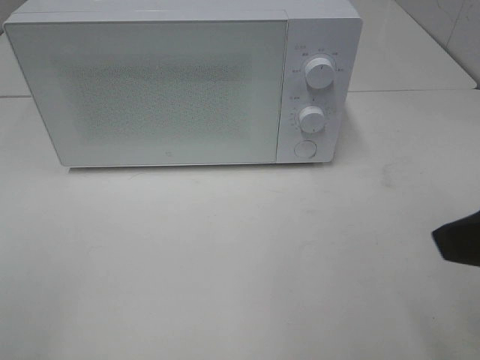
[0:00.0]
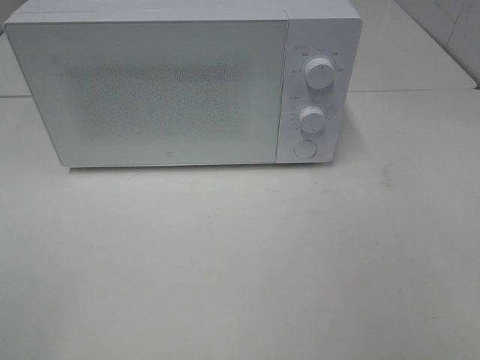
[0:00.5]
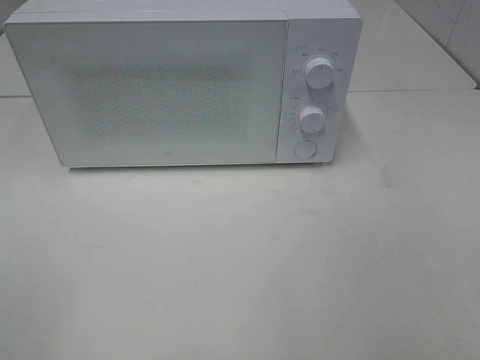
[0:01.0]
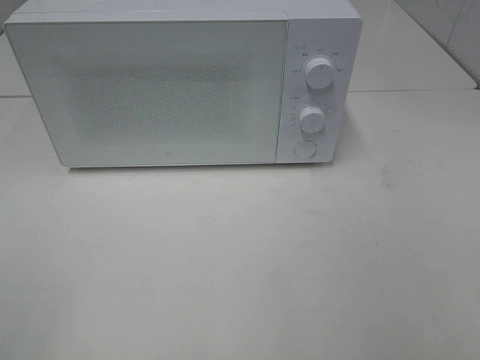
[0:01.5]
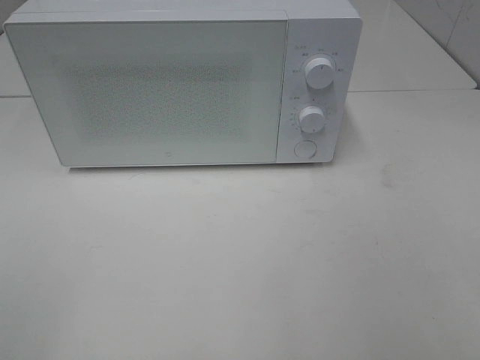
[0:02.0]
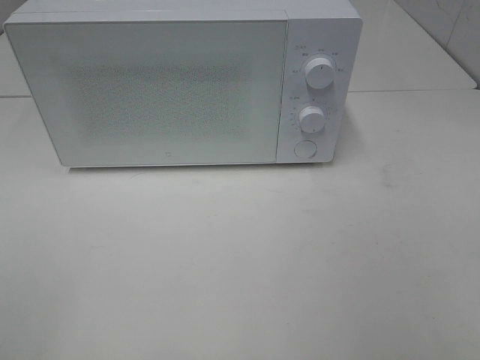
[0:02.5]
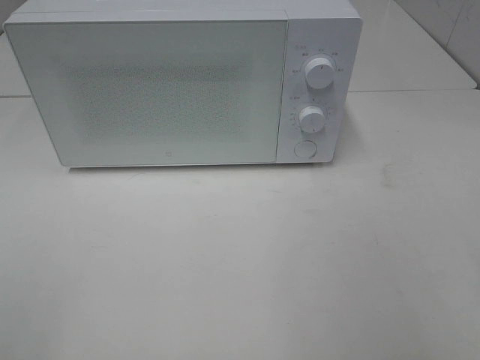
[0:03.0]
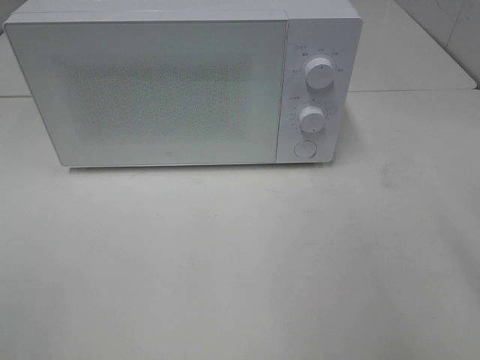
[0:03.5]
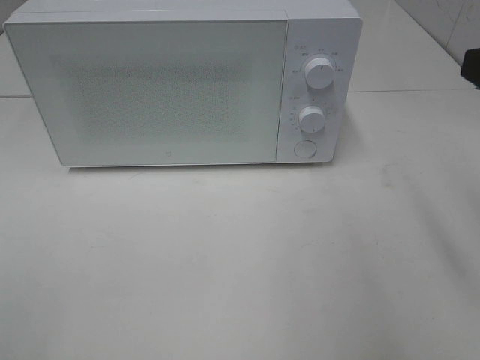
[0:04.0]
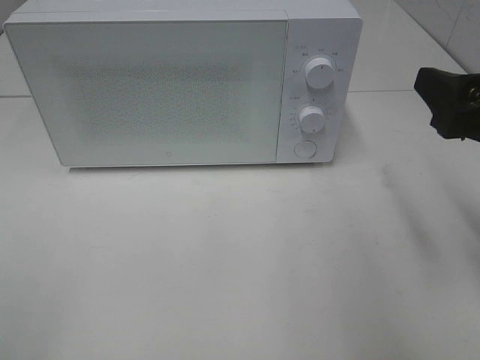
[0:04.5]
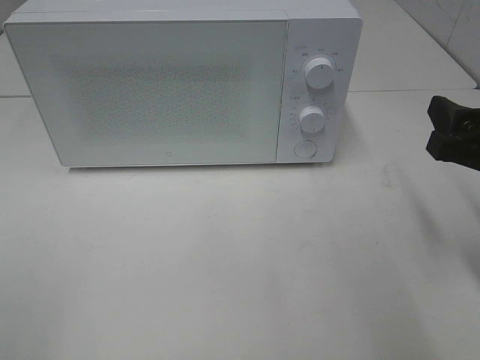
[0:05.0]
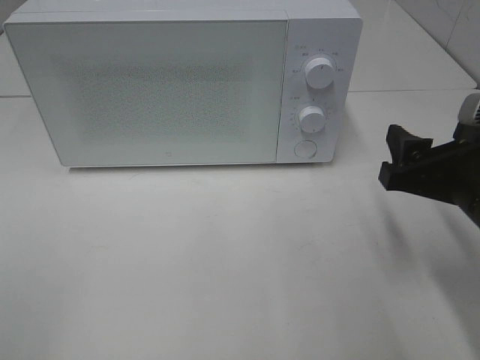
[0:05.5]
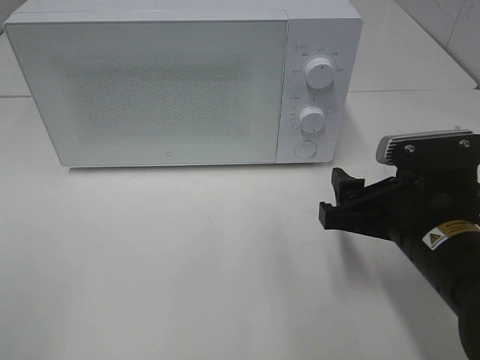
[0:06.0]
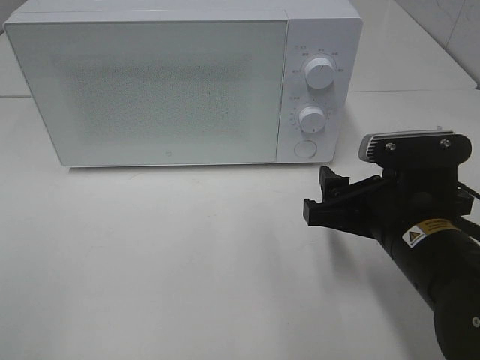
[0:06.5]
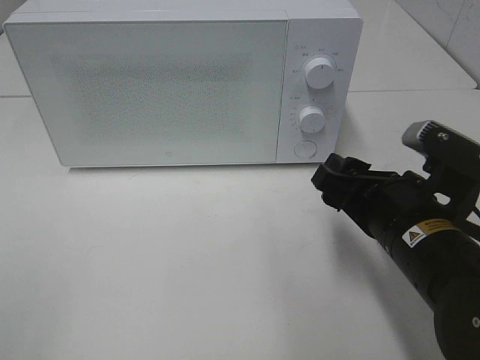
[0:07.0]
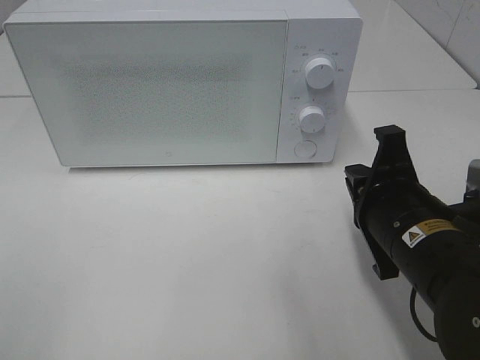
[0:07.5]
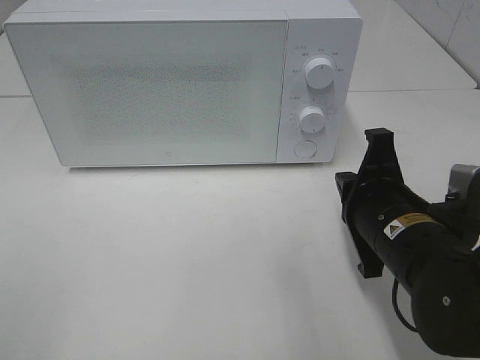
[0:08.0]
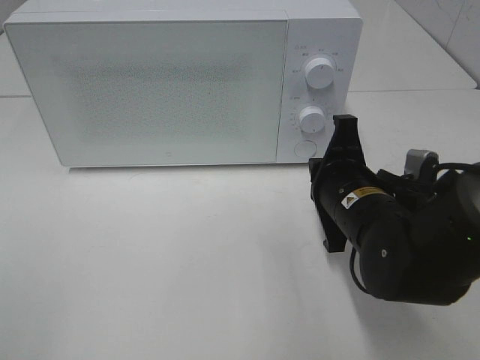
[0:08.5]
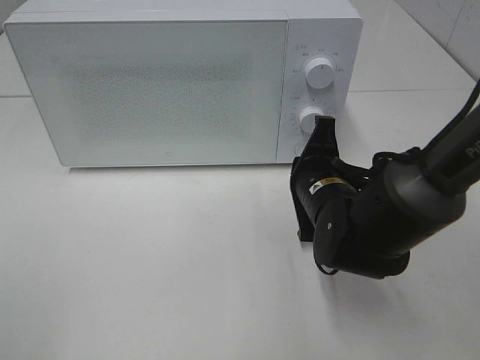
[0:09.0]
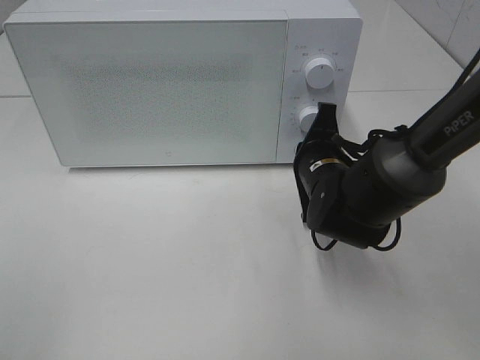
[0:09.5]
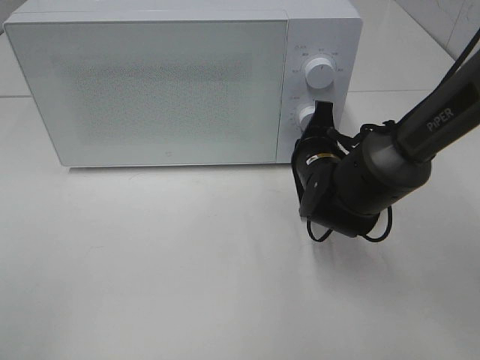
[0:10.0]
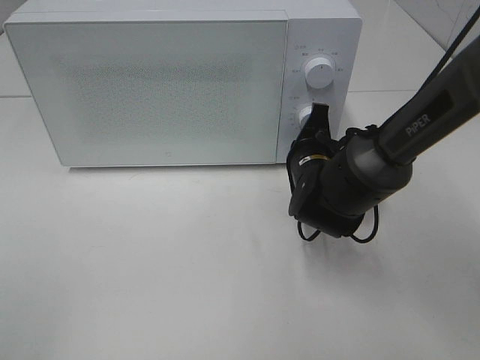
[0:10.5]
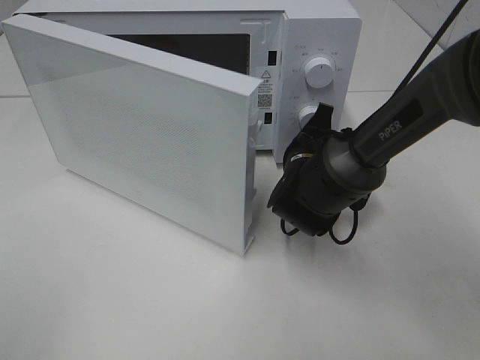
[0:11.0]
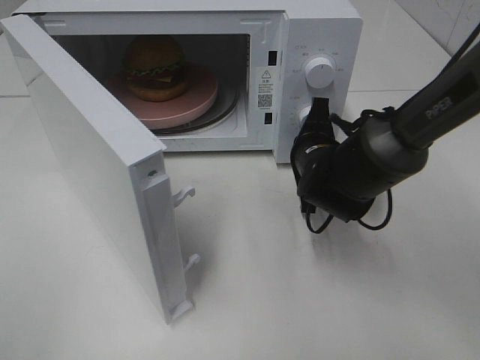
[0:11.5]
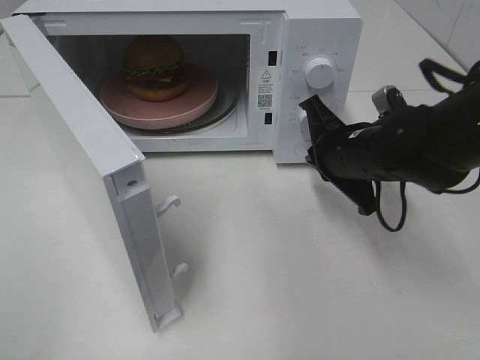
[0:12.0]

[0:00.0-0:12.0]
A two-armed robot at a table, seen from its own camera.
Task of the whole recording: Heat the burger.
0.0 to 2.0 s: The right gripper shifts roughly 15 cm backward and to the right.
4.0 to 6.0 s: The right gripper shifts some 15 cm downward and to the left.
6.0 to 8.0 s: The right gripper closes.
8.0 to 10.0 s: The right gripper moves forward, roughly 15 cm.
10.0 to 12.0 s: The right gripper travels upward by about 5 cm.

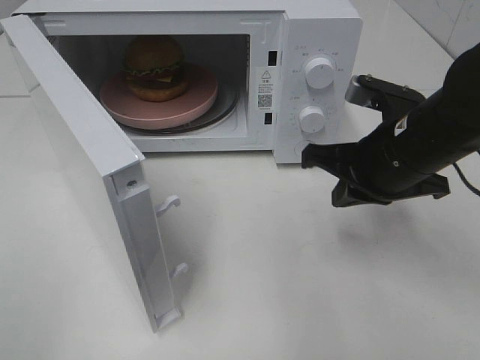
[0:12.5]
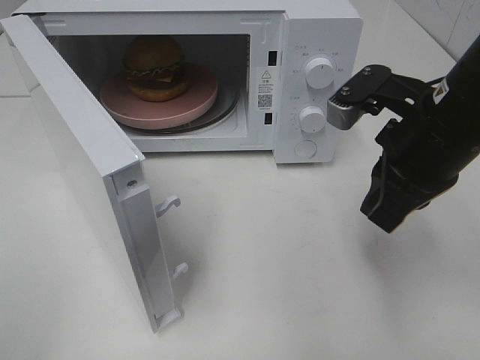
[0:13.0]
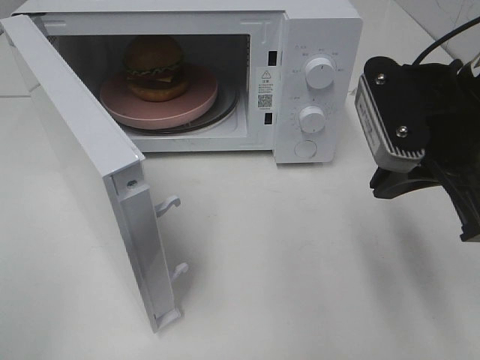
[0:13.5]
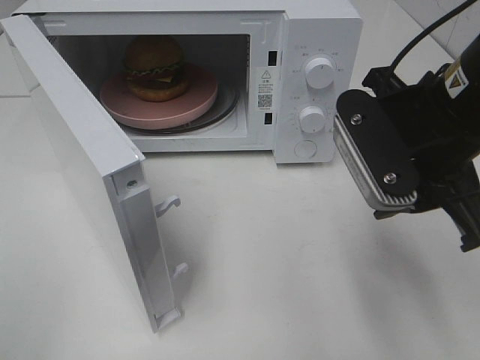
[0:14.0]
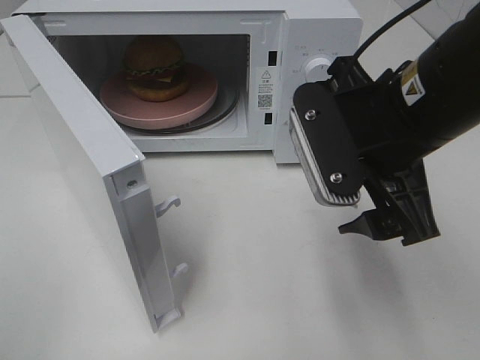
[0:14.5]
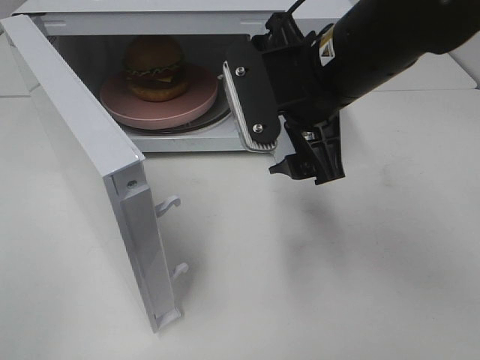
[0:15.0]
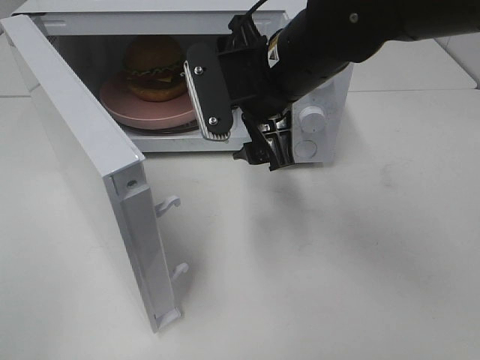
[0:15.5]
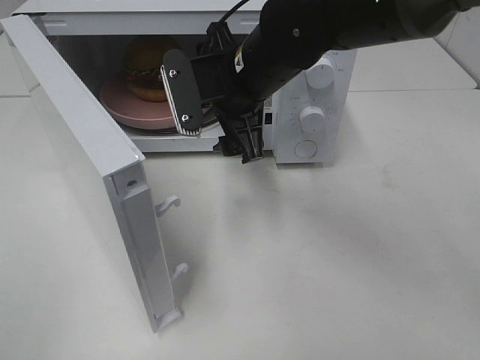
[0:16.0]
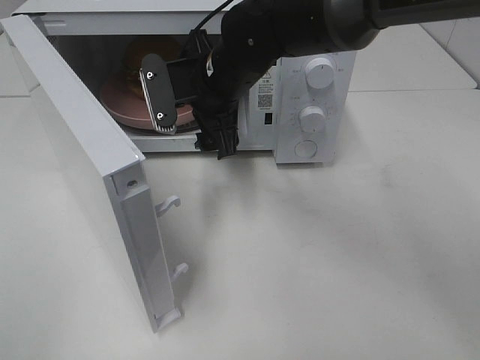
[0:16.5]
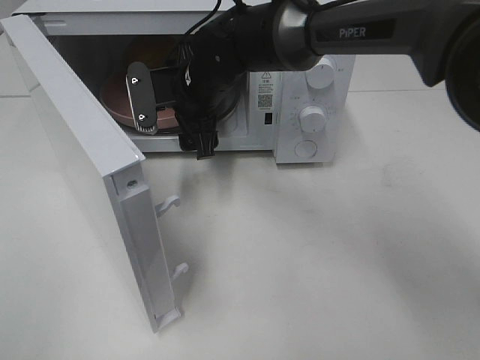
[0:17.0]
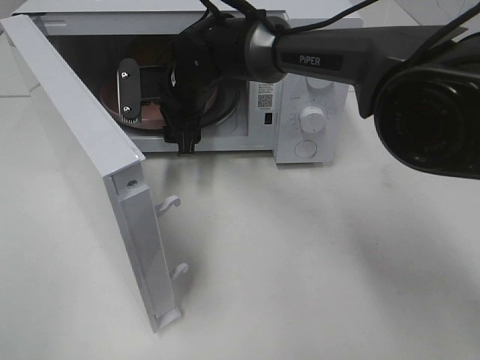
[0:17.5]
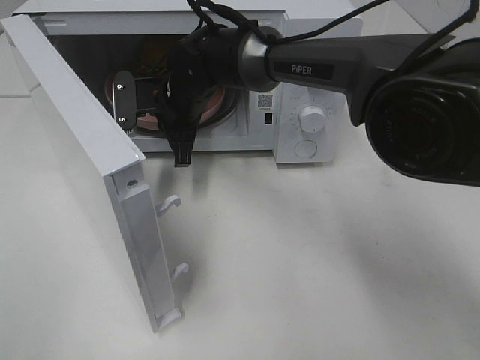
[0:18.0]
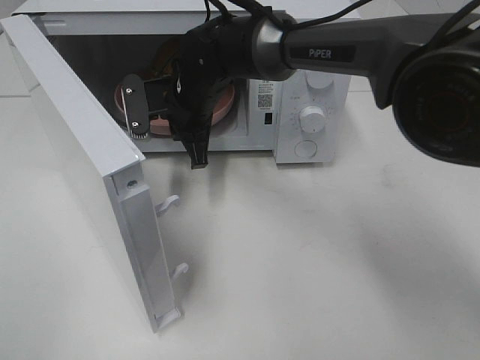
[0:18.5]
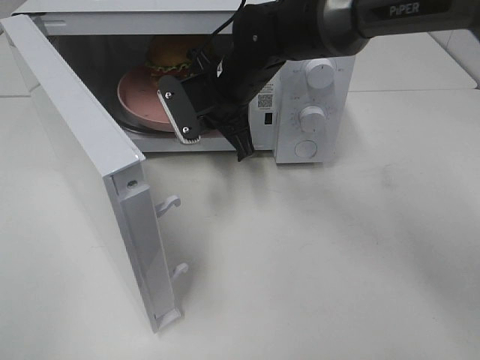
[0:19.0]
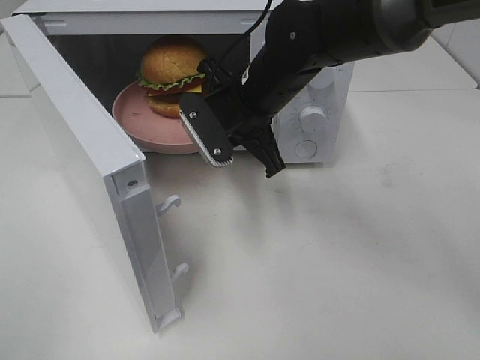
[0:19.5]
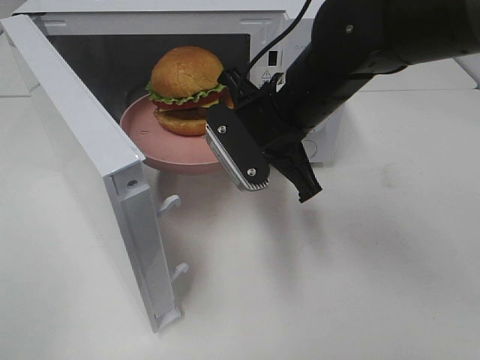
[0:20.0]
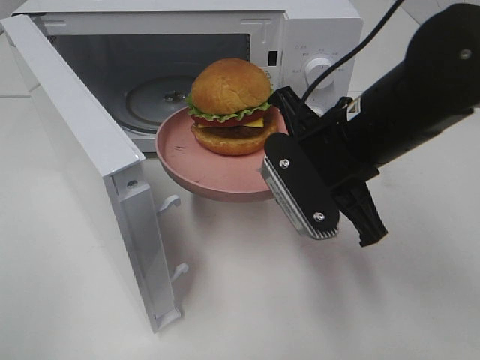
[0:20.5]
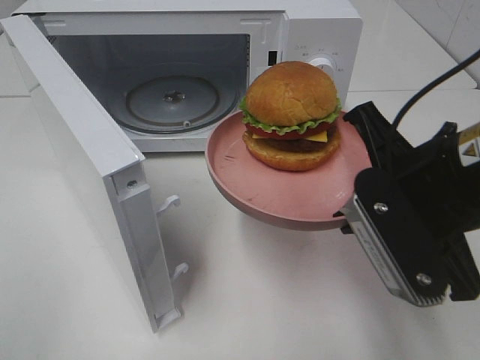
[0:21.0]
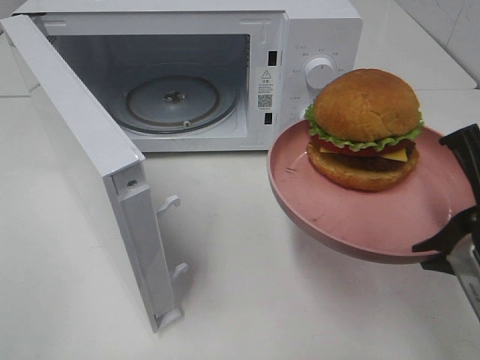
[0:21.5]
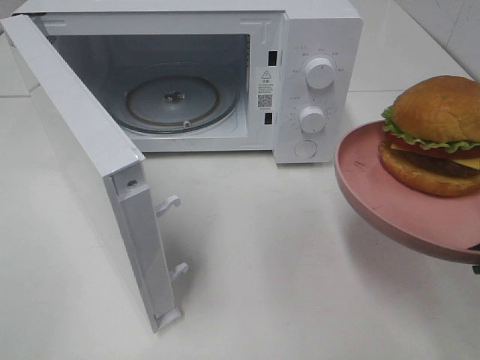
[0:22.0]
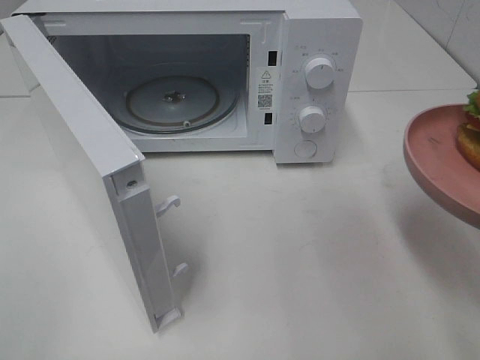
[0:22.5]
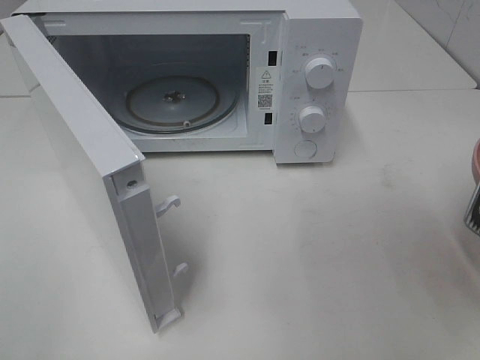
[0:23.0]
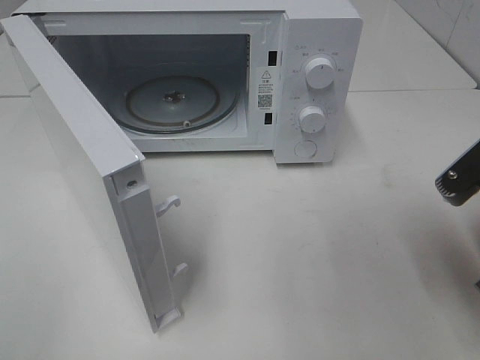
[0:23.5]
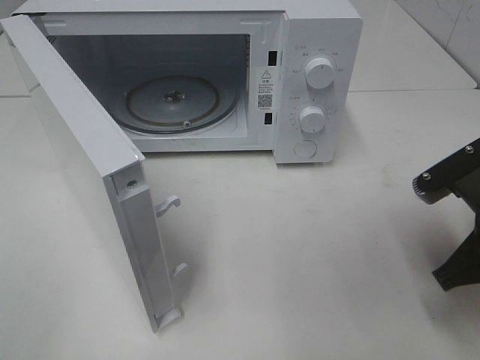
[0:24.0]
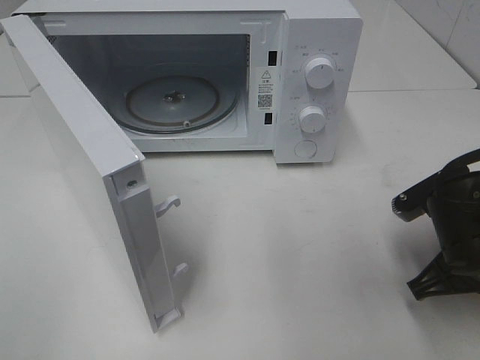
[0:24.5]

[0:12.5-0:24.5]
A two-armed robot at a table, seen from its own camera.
Task of the whole recording: Heat the burger.
Step, 12.5 to 17.5 s: Right hand: grab the plate with the hamburger.
12.5 to 14.5 s: The right gripper travels upward by approximately 10 cm, and opens its fingers.
14.5 to 16.5 s: The right gripper heads forward and to the left, covering roughly 20 cm.
16.5 to 18.5 s: The right gripper ends up approximately 5 cm from where it was, and closes.
18.5 to 20.5 s: The right gripper shifts some 25 cm backward and to the right.
20.5 to 22.5 s: The right gripper moves to the right and backward, roughly 20 cm.
22.5 to 24.5 s: The right gripper moves downward and forward, some 15 cm.

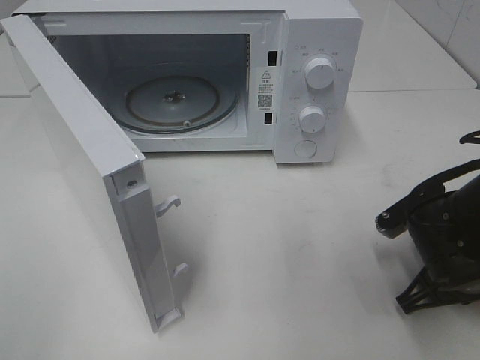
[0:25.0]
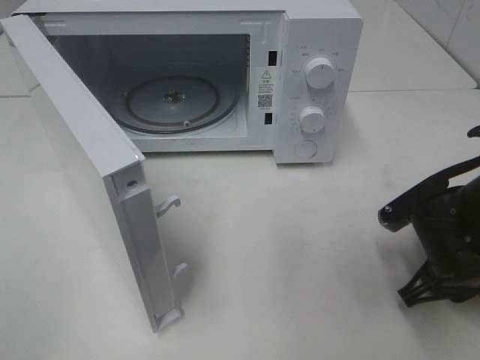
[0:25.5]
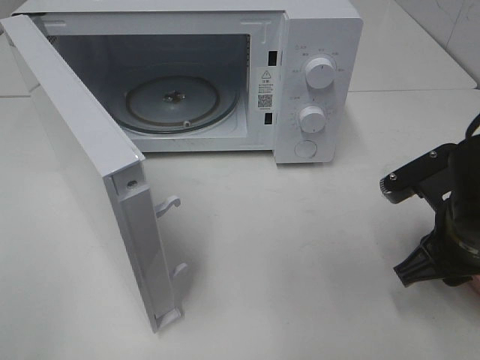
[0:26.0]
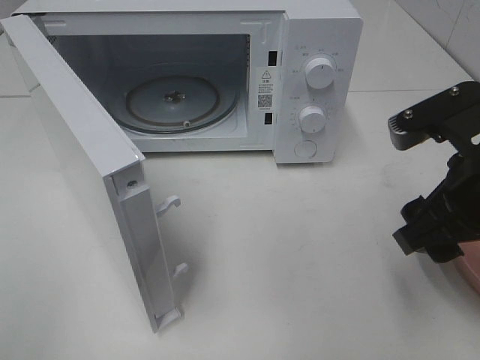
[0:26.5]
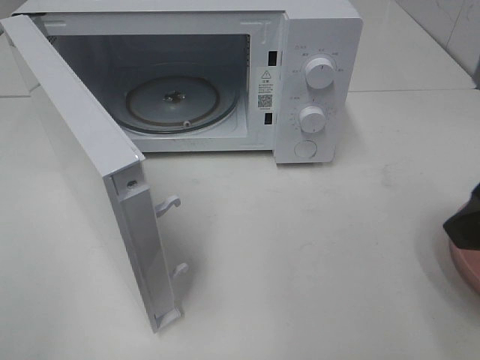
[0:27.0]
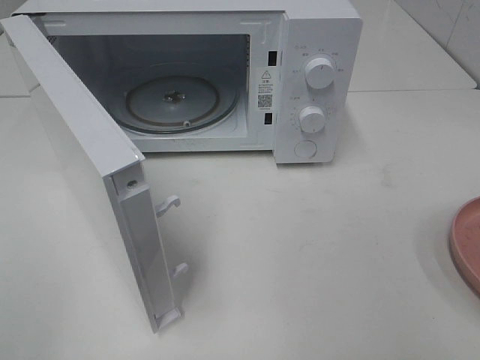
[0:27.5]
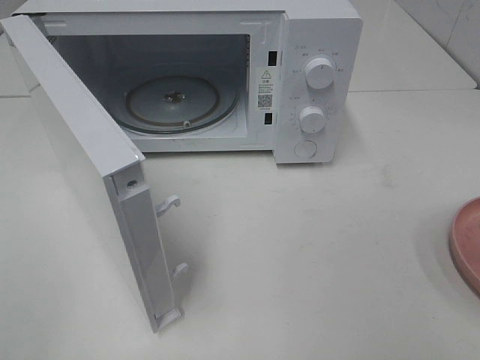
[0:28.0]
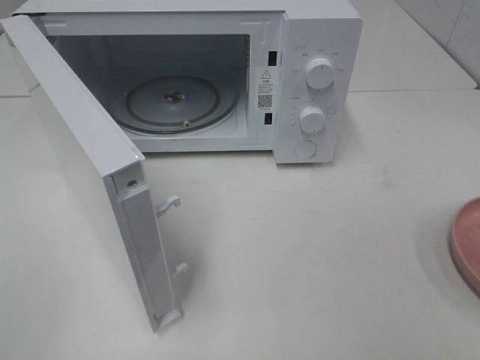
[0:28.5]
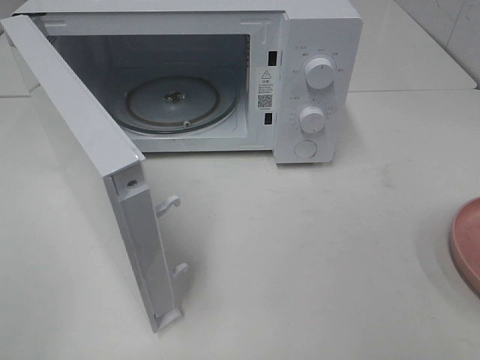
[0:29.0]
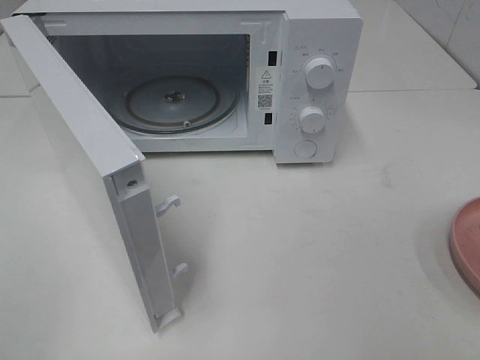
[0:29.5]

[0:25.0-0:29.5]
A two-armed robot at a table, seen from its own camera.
Task of the whole recording: Heat the burger.
25.0 to 27.0 s: The right gripper goes approximately 20 cm upward, and opens its fingers.
27.0 to 29.5 s: The right gripper shifts some 15 cm backward and to the right.
